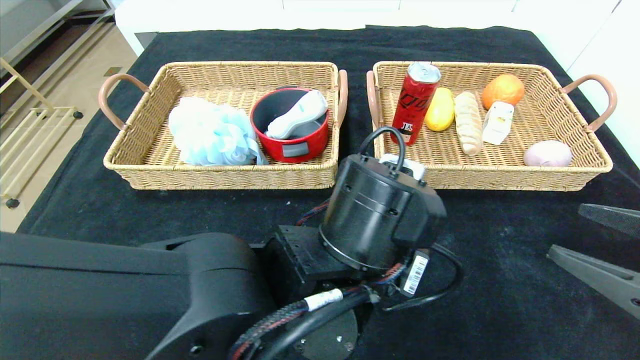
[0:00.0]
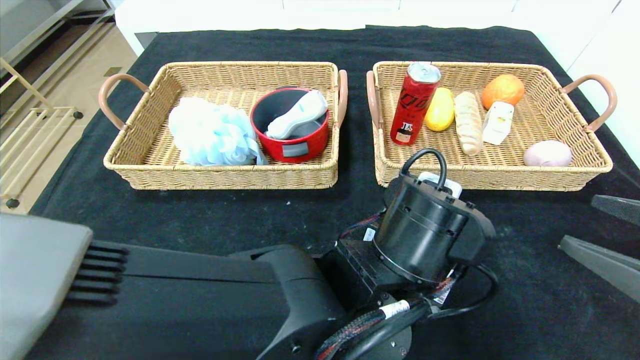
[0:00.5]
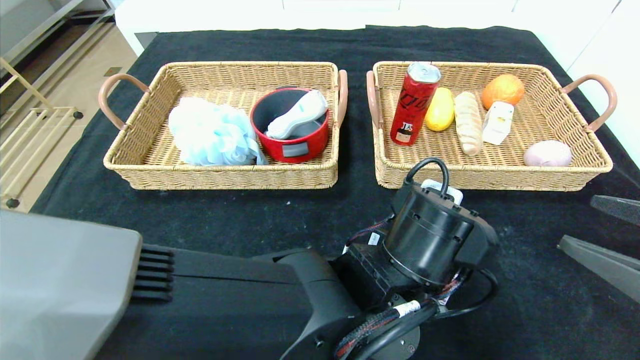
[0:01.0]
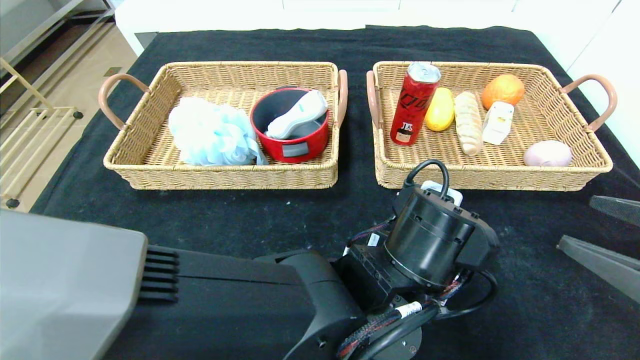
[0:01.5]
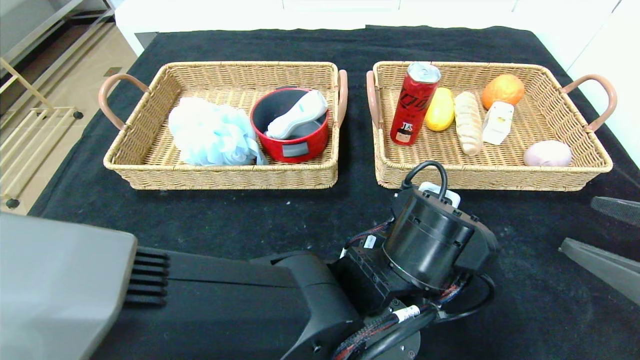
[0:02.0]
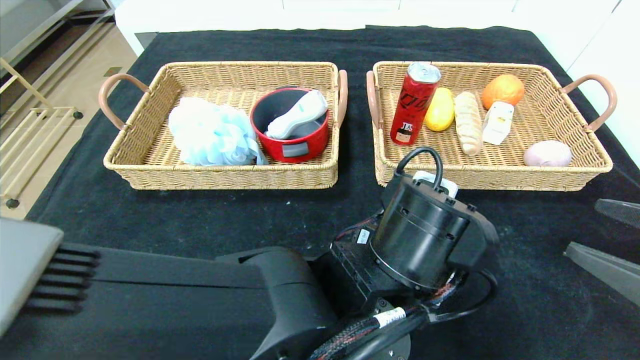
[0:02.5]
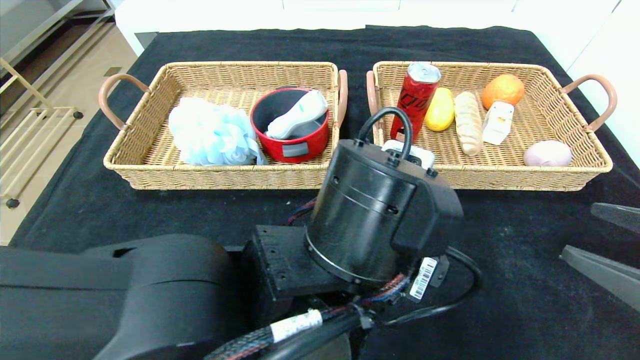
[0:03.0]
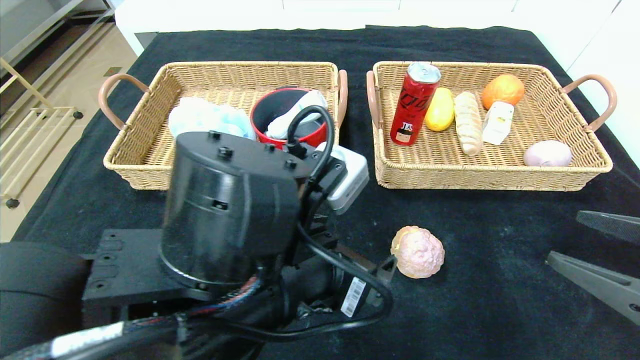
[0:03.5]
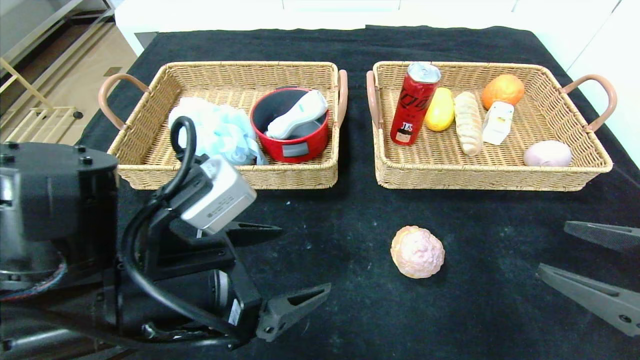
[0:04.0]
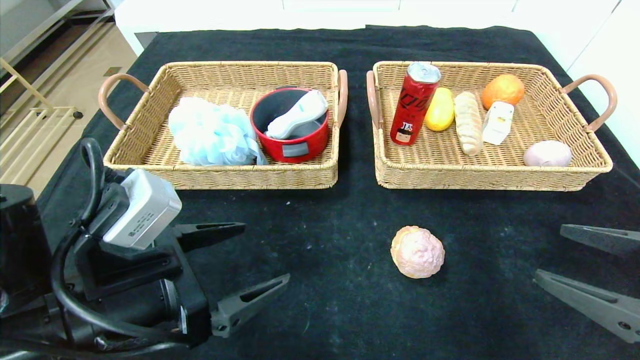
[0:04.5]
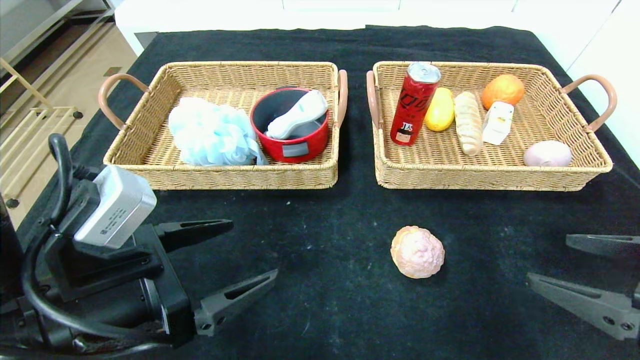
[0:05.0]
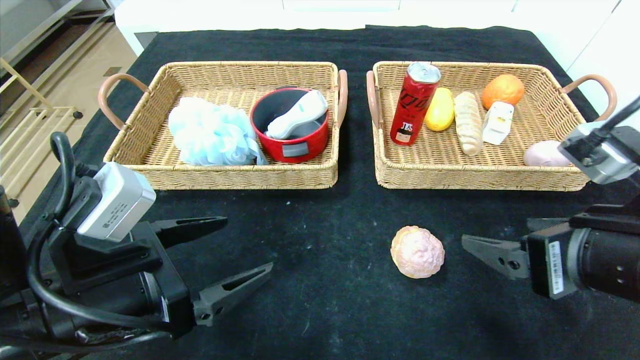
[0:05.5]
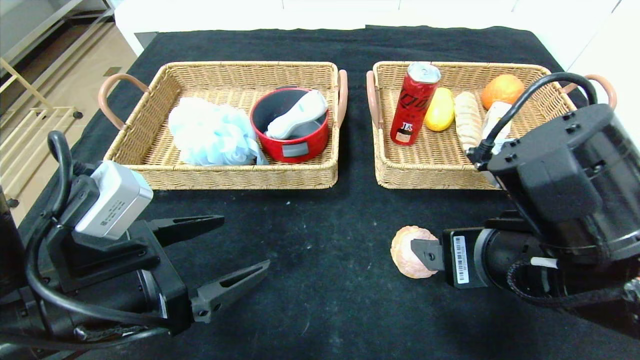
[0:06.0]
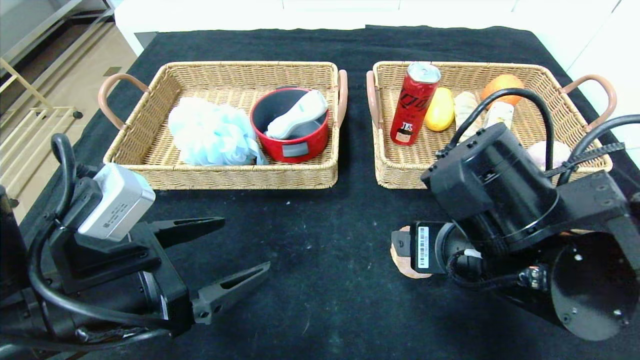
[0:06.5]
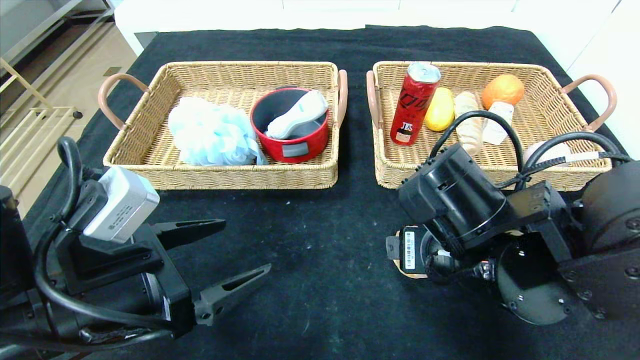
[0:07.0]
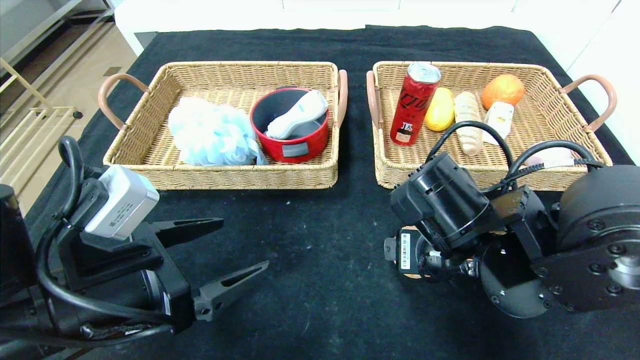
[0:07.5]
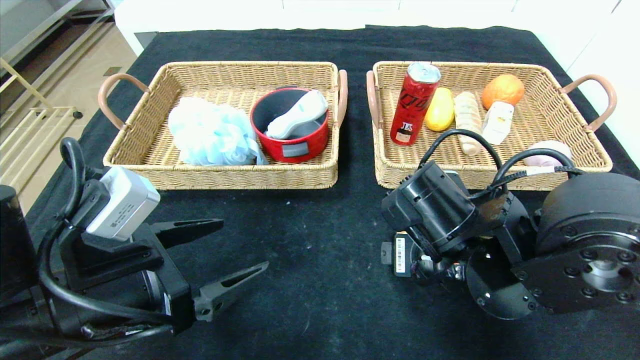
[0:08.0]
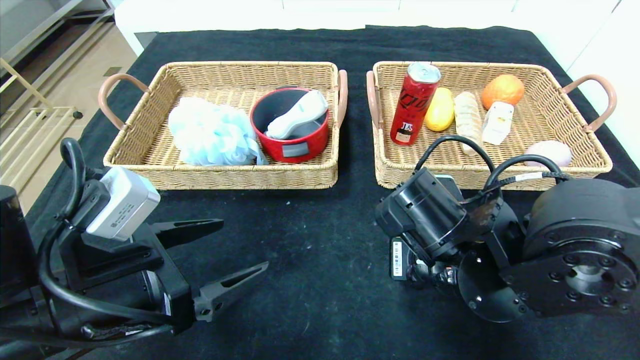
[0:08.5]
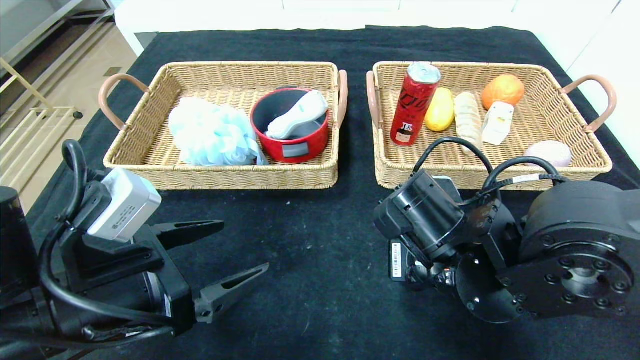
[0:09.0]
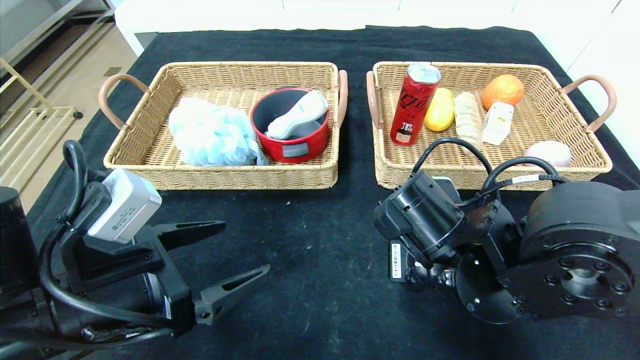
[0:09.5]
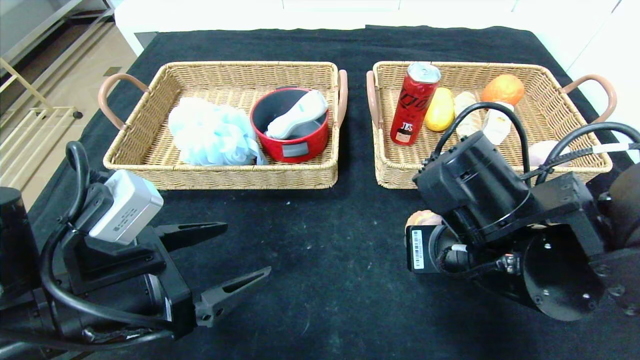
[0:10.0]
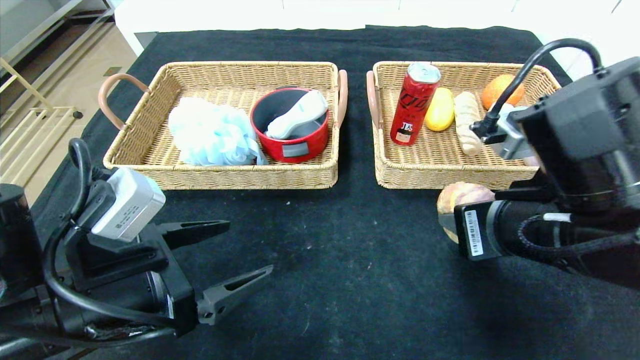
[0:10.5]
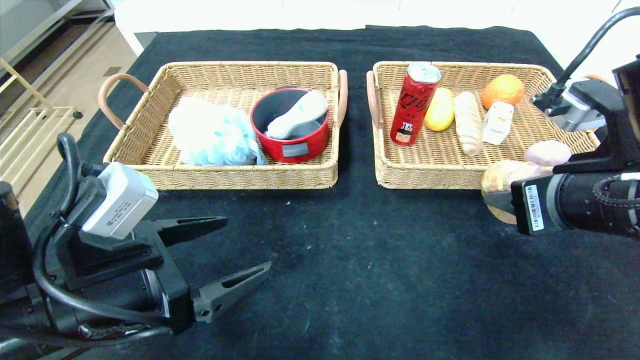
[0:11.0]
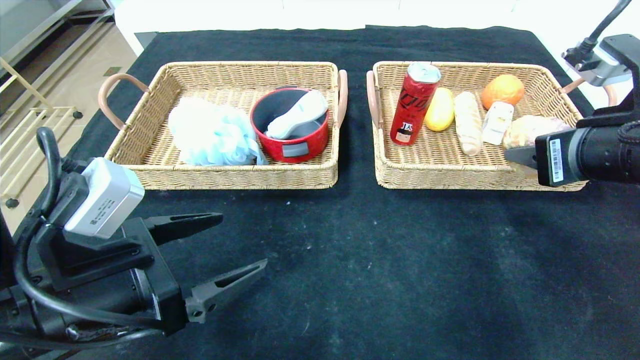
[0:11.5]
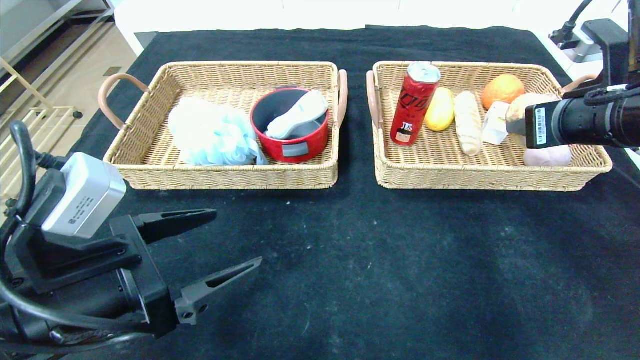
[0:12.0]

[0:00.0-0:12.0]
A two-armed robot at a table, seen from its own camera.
Step, 0:00.0 to 0:02.5: Place the round bread in the center of the table.
0:00.0 to 0:02.0: The left gripper ends up some 5 cm from where it was, and opens.
0:02.0 to 0:04.0: The left gripper goes roughly 20 cm to the left.
0:04.0 to 0:06.0: The left gripper shifts approximately 5 cm to the left. The right gripper moves to the left, roughly 15 cm.
0:06.0 to 0:08.0: The right gripper heads forward, covering approximately 5 cm.
0:08.0 to 0:10.0: The right gripper closes up.
0:10.0 to 0:12.0: The right gripper goes some 20 cm to the right, upward and forward.

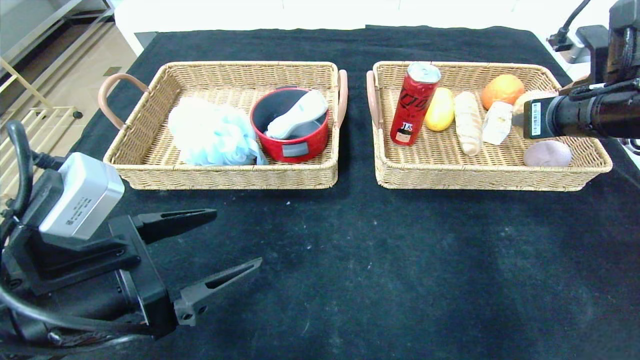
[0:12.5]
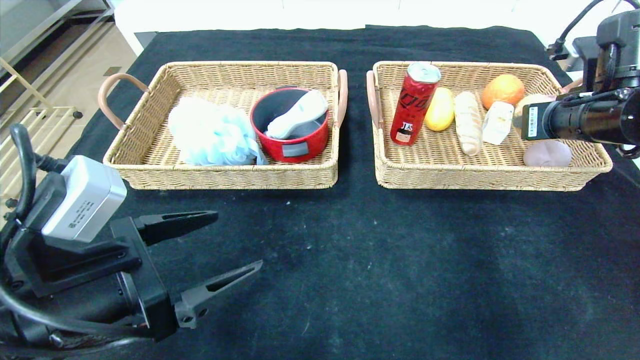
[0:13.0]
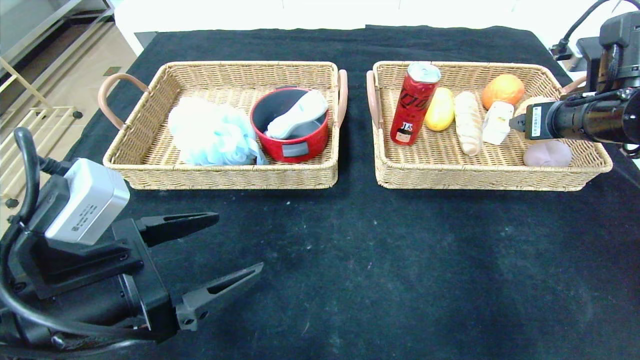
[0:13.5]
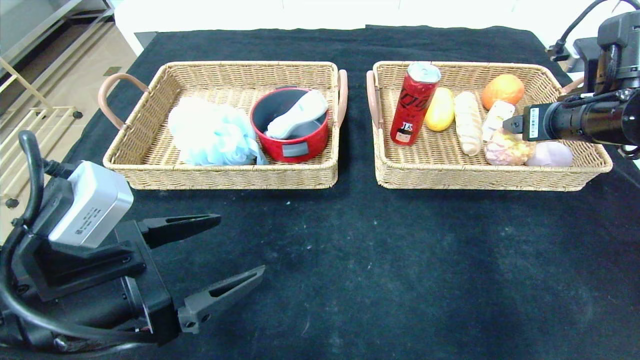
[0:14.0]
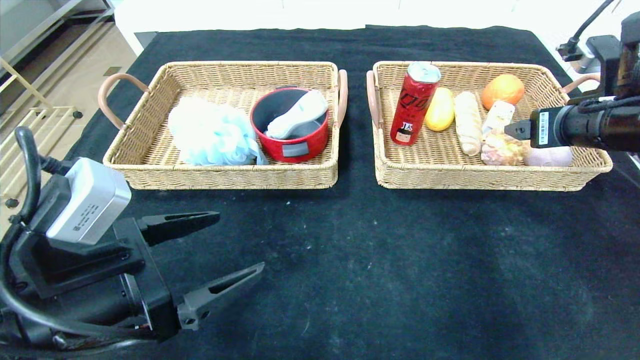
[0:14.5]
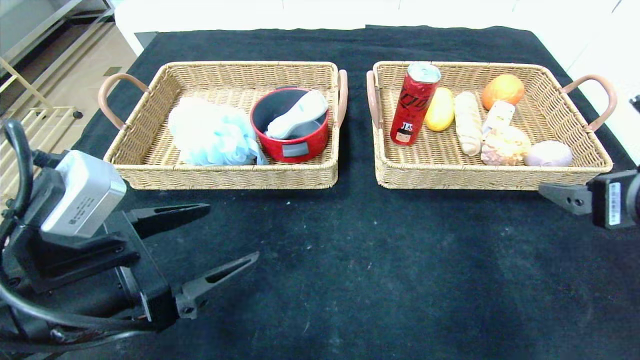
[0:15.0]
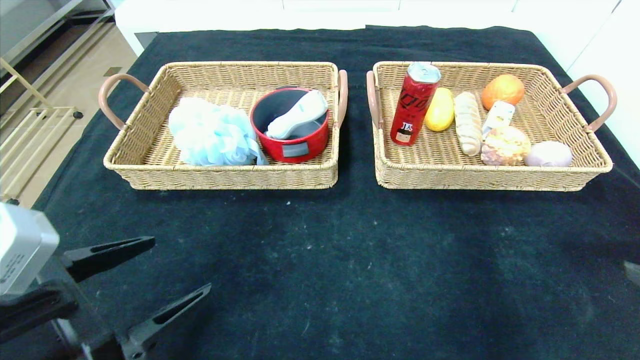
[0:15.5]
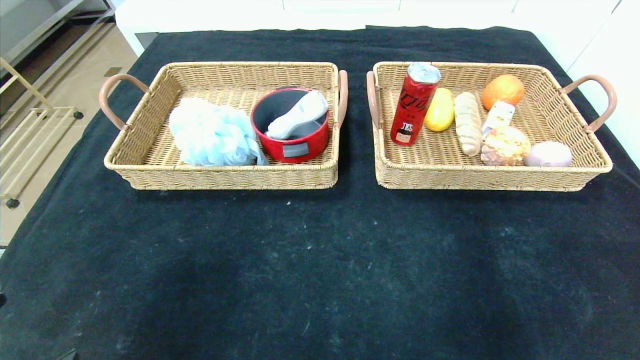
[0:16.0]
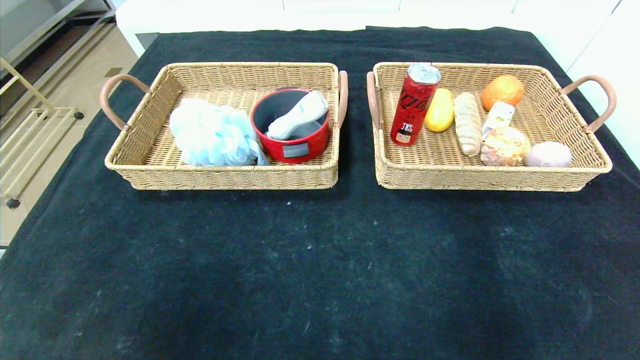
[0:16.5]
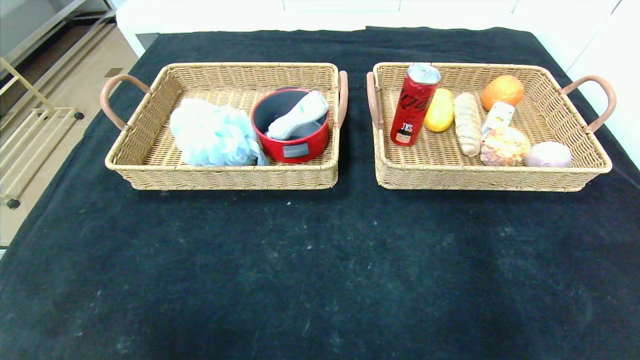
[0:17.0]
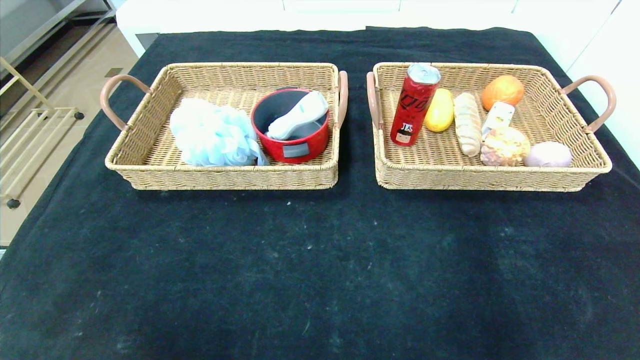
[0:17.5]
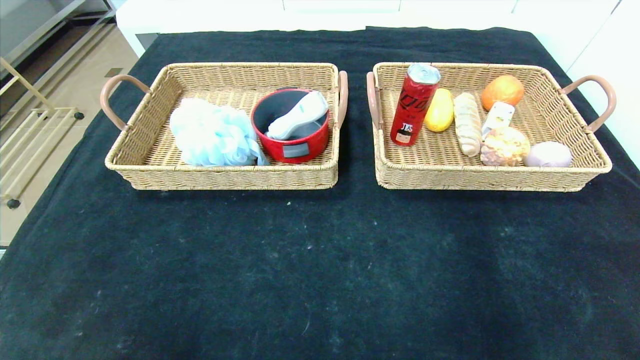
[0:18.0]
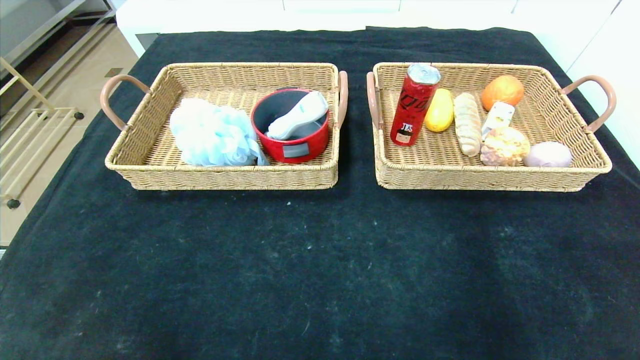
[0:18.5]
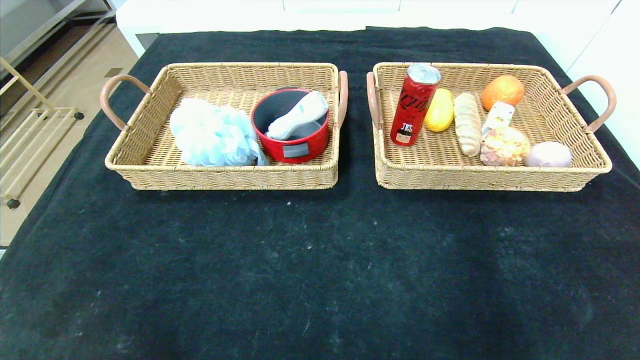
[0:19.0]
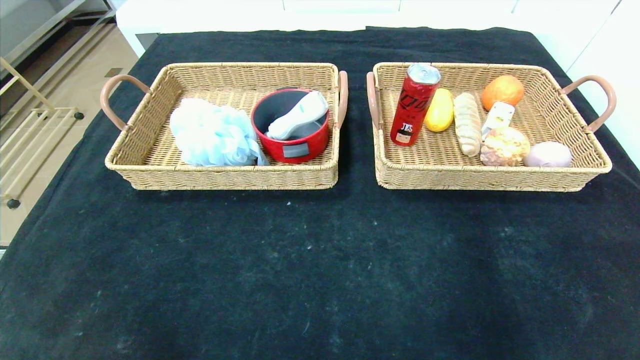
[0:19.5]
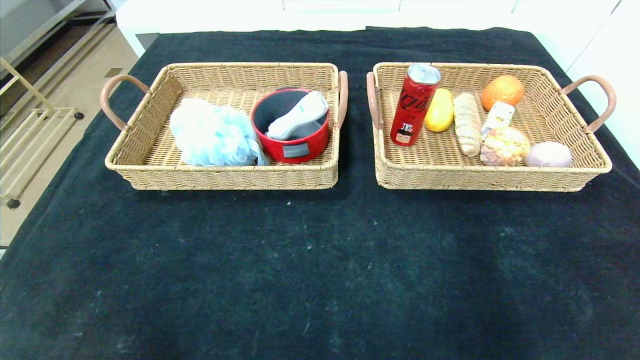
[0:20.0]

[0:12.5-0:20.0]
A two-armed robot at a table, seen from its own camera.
0:12.5 to 0:14.5: The right gripper opens.
0:14.5 to 0:16.5: The right gripper goes approximately 35 cm backward. Meanwhile the left gripper heads backward, covering roughly 20 cm.
